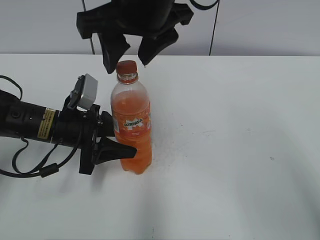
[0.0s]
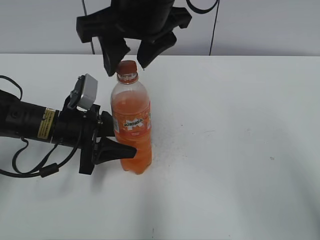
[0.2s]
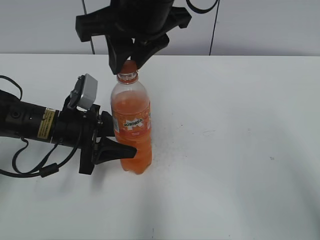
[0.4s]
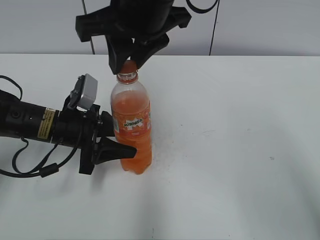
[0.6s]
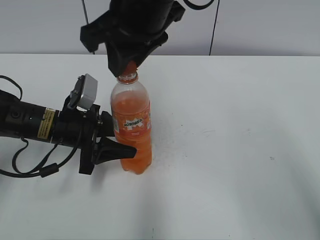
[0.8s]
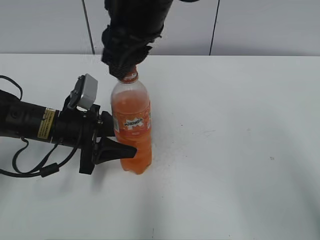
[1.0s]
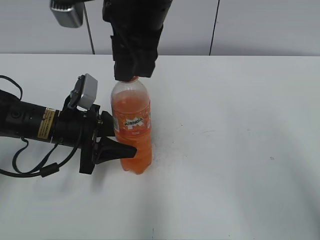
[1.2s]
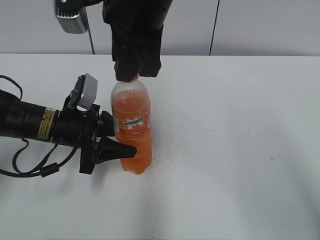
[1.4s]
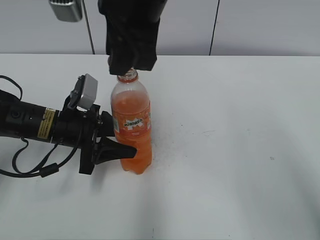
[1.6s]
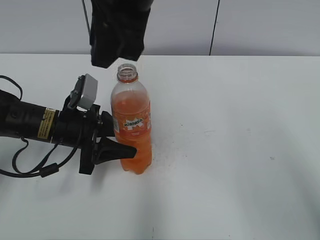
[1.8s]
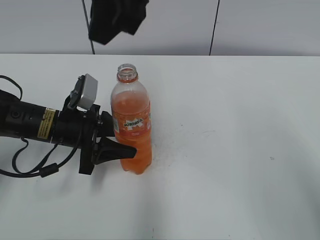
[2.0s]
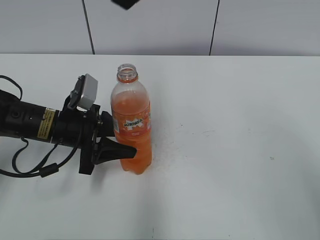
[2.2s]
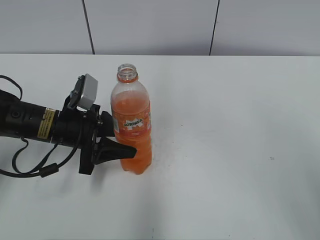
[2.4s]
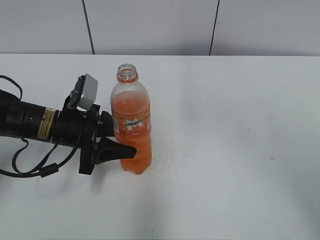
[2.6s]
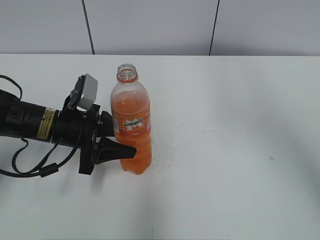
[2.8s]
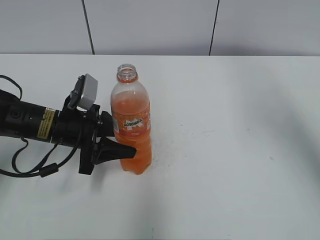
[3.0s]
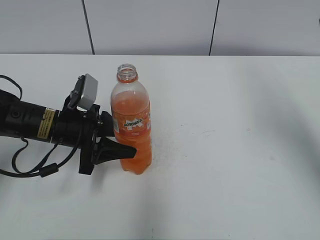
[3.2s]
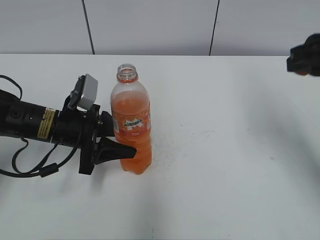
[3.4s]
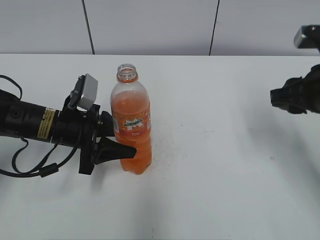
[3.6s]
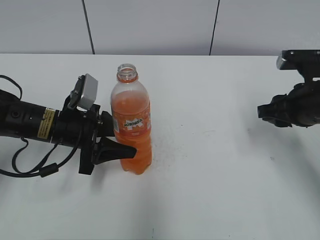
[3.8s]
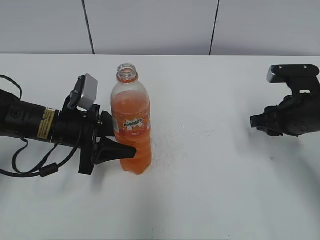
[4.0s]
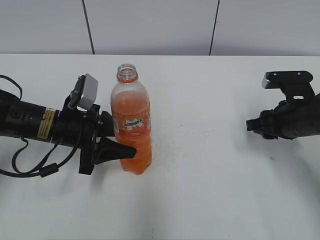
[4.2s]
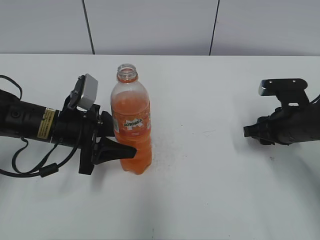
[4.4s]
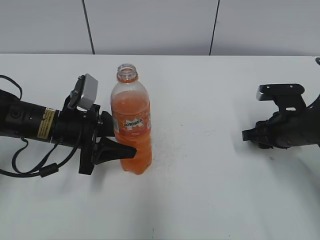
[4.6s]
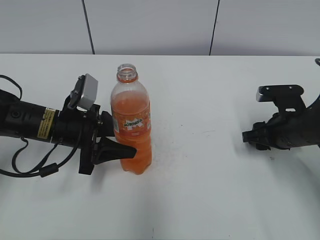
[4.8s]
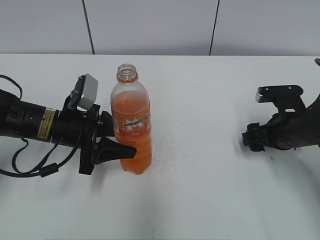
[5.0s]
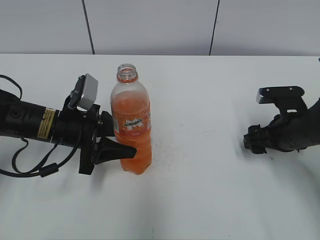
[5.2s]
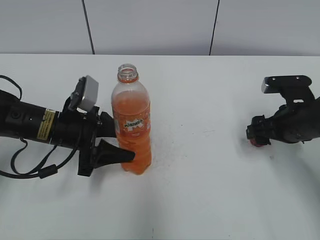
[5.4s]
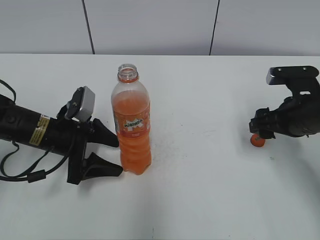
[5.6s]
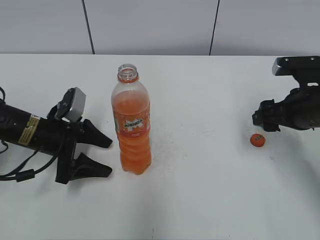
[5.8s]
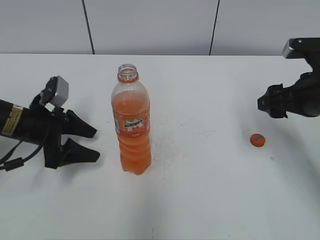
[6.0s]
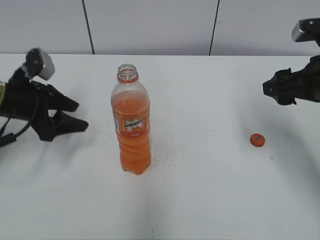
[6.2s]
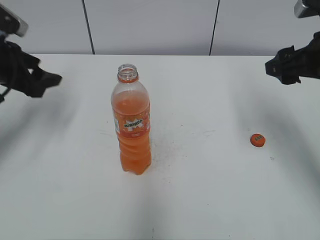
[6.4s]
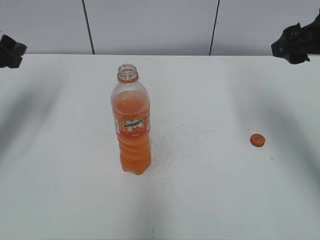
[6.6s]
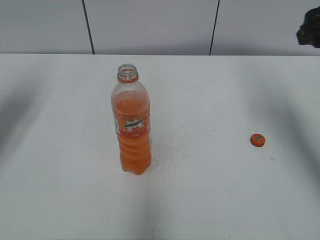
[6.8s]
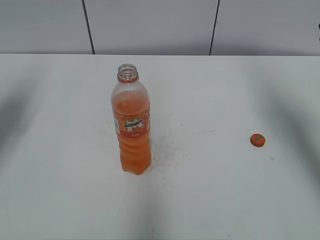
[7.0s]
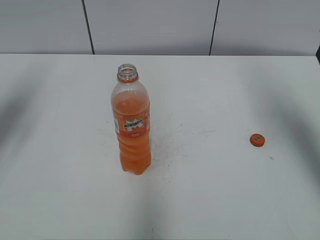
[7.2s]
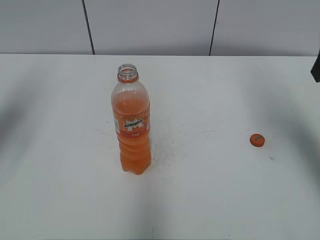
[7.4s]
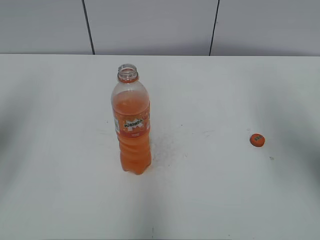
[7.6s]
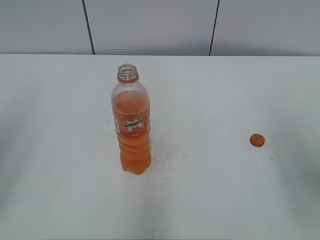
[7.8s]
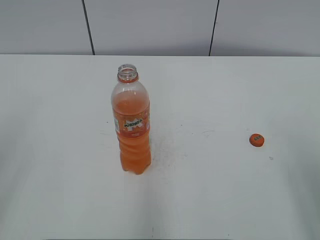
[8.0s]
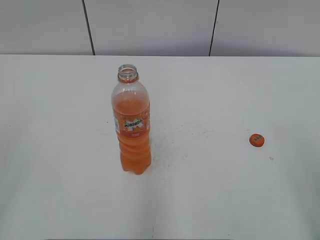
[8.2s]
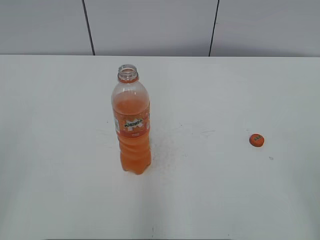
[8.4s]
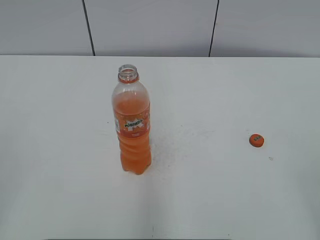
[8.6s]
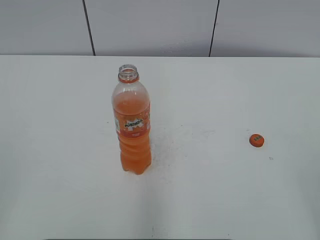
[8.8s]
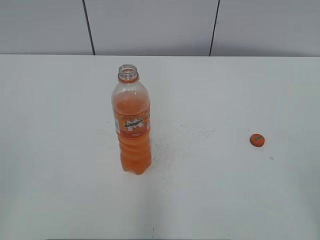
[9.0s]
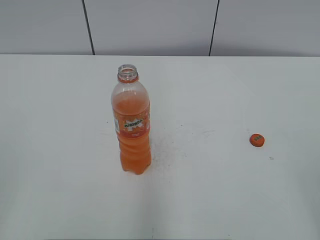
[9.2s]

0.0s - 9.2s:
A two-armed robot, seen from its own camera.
Step, 1.6s - 5.0s: Place the bottle cap on the right.
0.0s - 1.6s: The right gripper closes.
1.6s - 3.0s: The right gripper goes some 25 cm to the right.
3.0s - 4.6s: The right gripper travels downward by roughly 35 cm.
4.6s - 6.2s: The left gripper is displaced to the left by about 10 cm, and opens up; the right gripper is displaced upward by roughly 15 cm, and opens.
6.2s - 7.6s: The left gripper travels upward and backward by approximately 20 cm. Meanwhile the right gripper is displaced upward by approximately 10 cm.
7.6s - 9.2s: The grippers both shift backward by approximately 25 cm.

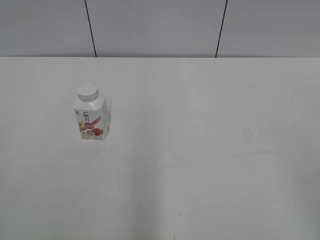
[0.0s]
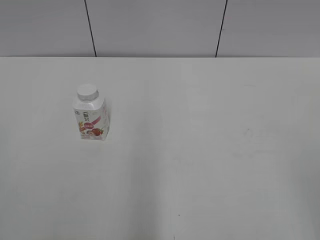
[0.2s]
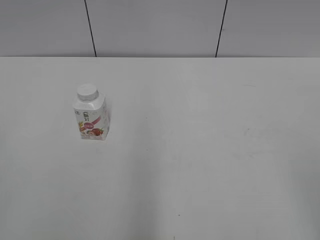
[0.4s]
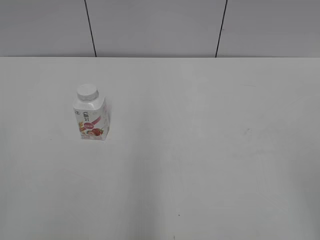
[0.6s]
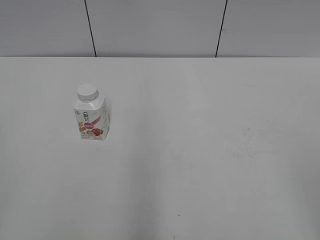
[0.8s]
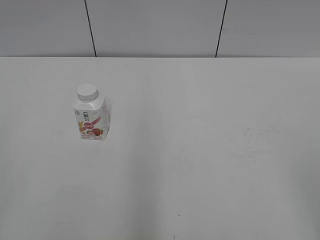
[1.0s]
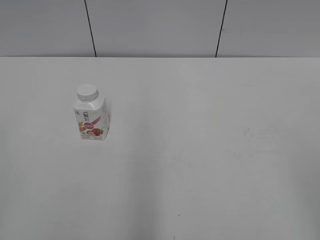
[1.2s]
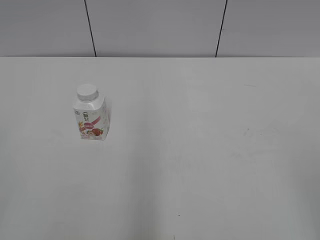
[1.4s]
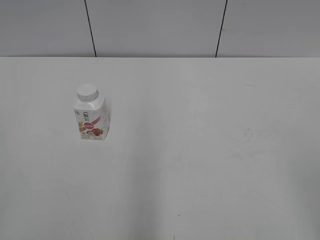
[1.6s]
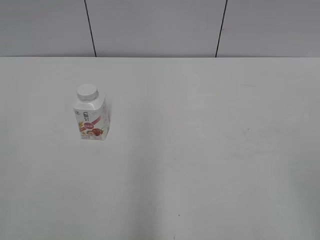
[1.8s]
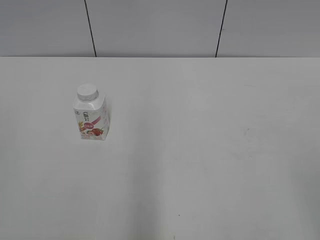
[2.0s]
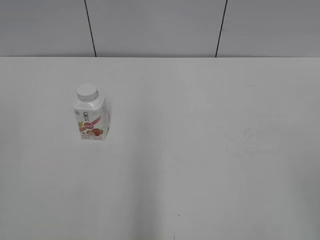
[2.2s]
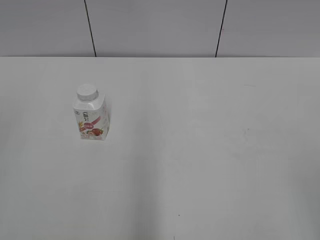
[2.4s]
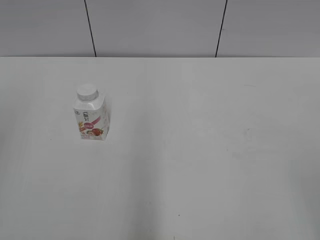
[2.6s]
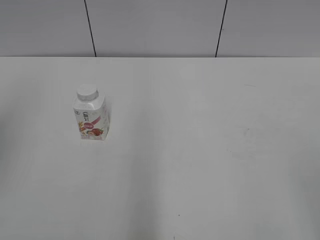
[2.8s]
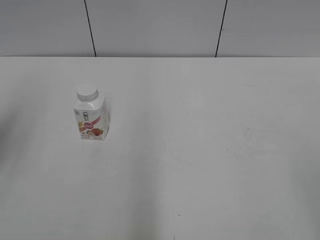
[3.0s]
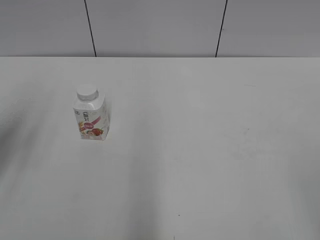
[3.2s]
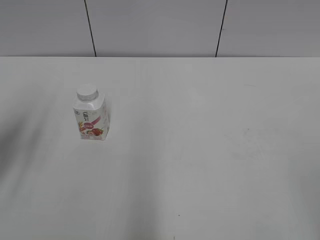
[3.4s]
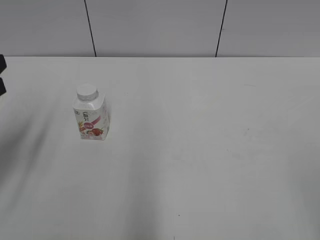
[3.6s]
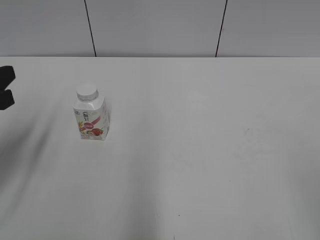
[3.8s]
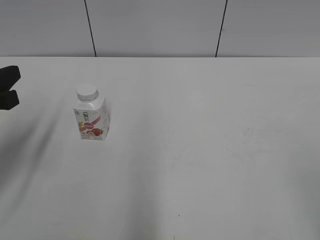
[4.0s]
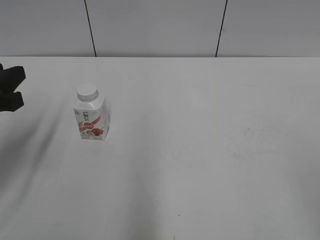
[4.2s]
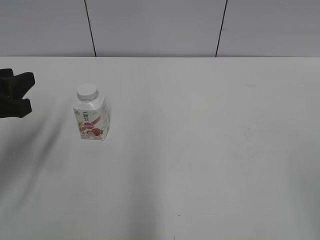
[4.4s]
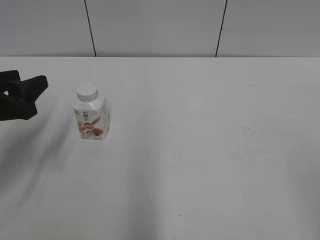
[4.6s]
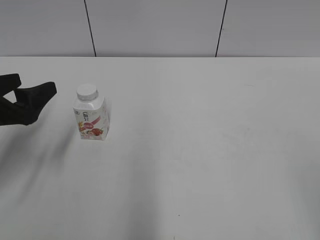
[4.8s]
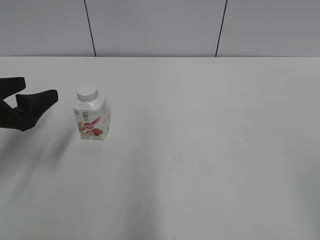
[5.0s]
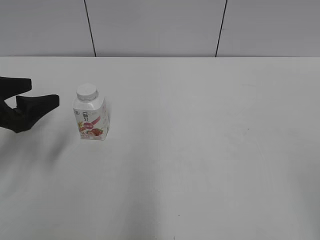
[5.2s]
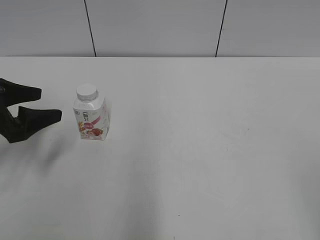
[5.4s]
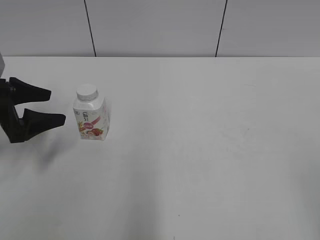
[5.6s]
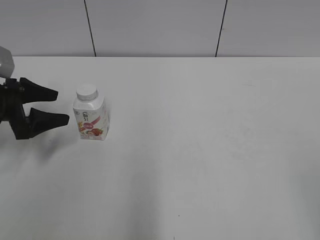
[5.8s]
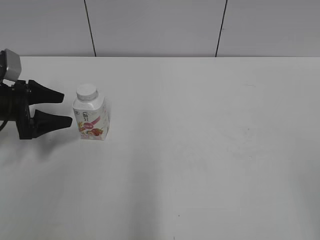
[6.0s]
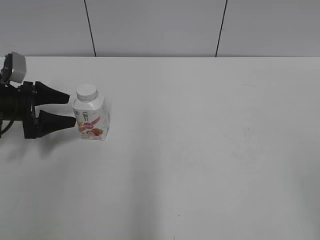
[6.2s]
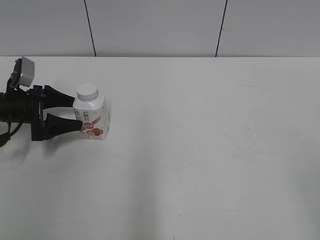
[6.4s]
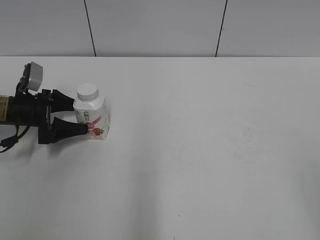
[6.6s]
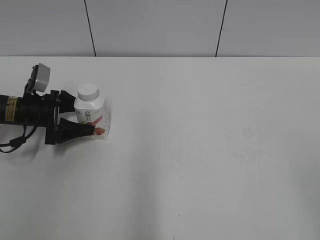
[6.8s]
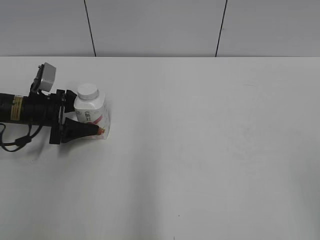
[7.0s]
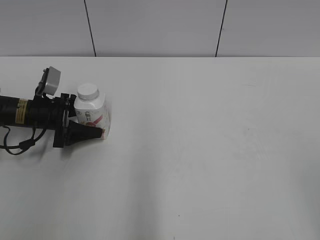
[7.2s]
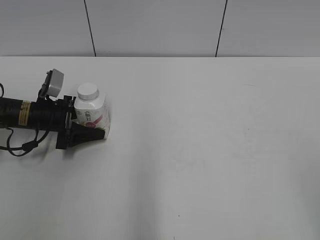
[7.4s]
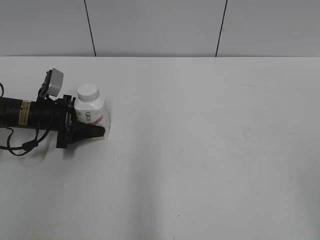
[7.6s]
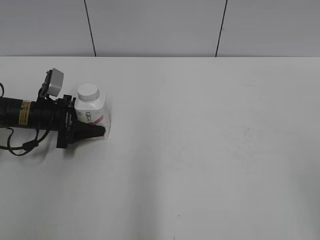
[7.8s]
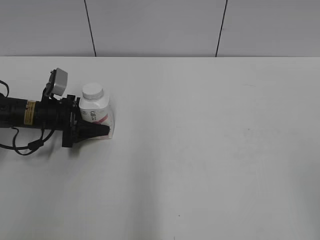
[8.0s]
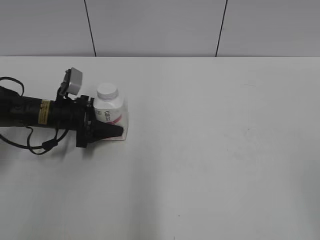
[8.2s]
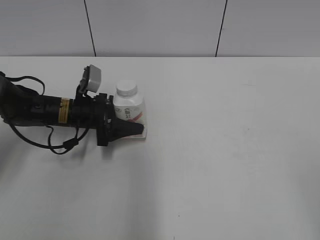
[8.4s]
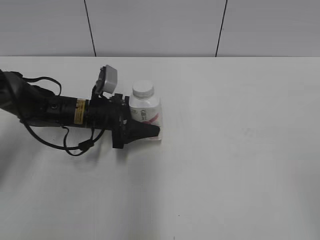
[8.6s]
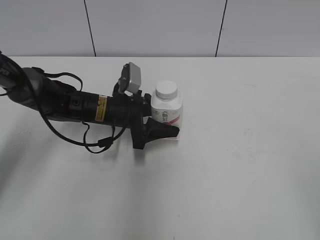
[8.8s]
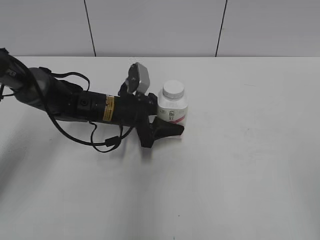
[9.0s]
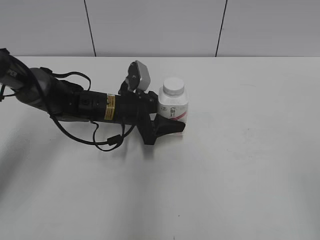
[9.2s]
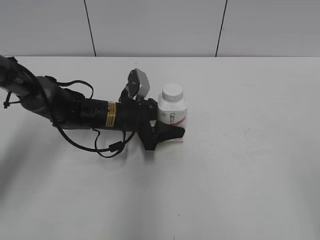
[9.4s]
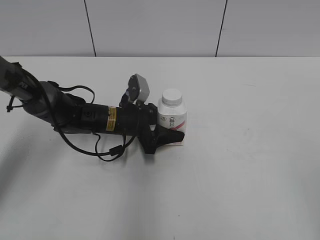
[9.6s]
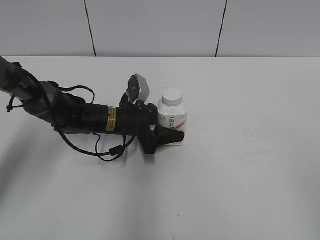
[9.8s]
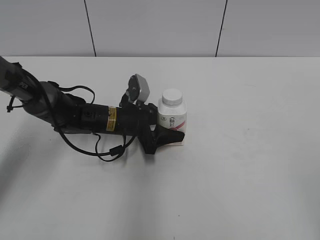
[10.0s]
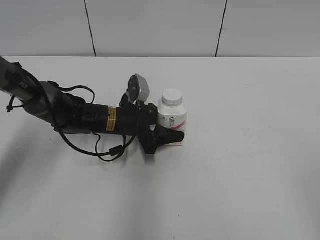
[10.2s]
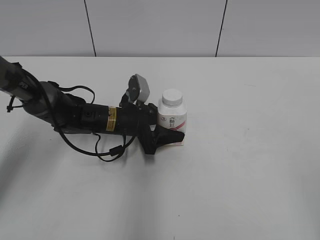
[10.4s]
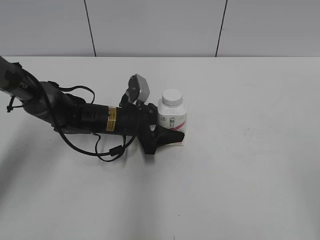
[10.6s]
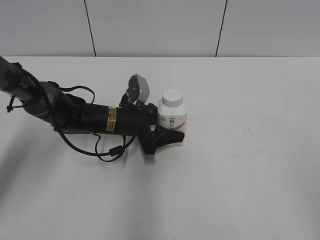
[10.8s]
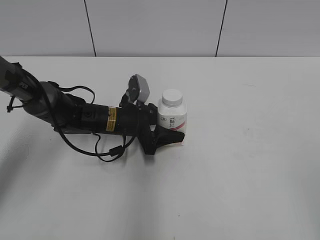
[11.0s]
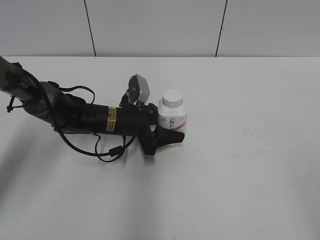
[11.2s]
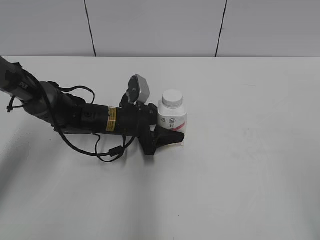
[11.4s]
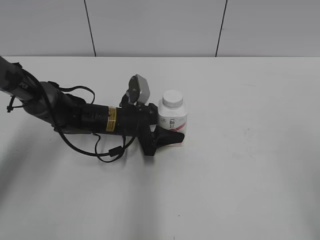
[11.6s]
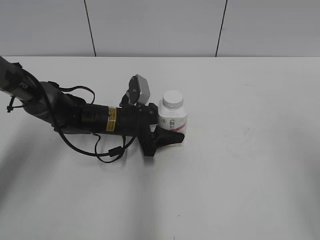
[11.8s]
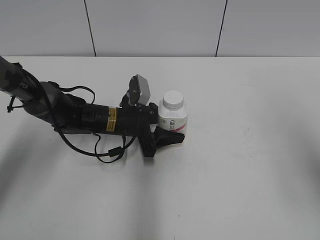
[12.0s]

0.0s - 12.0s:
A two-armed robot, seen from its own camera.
Step, 0.0s - 7.6s: Grab the Yili Changqing with the left hand.
1.6s - 3.0s: The left gripper goes roughly 20 cm forward.
3.0s - 4.4s: The left gripper moves downward, roughly 15 cm.
4.4s - 6.0s: The left gripper is displaced forward and downward by roughly 15 cm, and opens.
6.0s - 7.6s: The left gripper moves downward, some 5 cm, and closes its fingers.
7.6s - 9.0s: The left gripper shifts some 15 cm to the right.
9.0s - 10.4s: The grippers move only a little.
10.4s - 12.0s: The right gripper is displaced forward by roughly 15 cm.

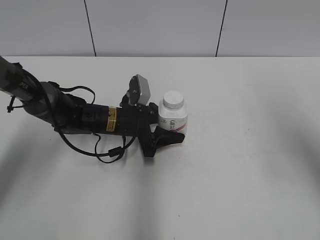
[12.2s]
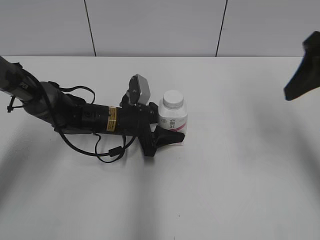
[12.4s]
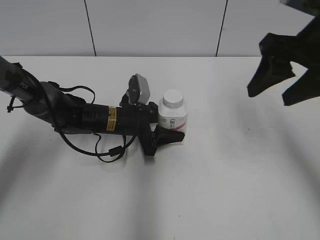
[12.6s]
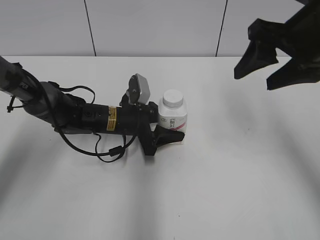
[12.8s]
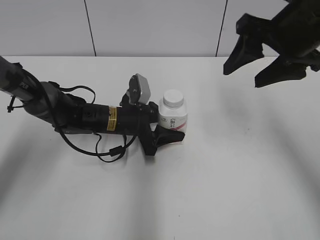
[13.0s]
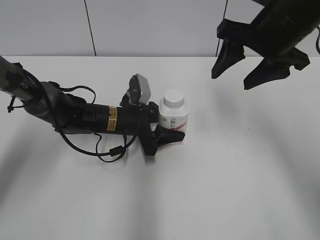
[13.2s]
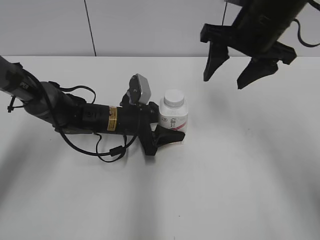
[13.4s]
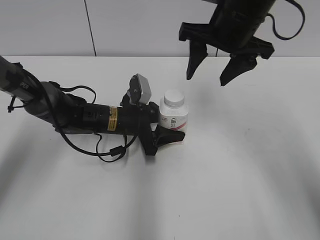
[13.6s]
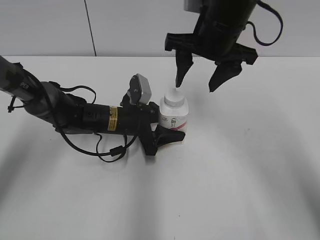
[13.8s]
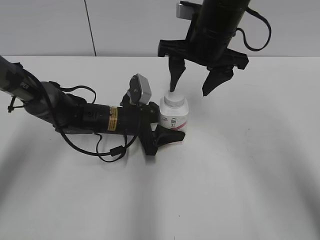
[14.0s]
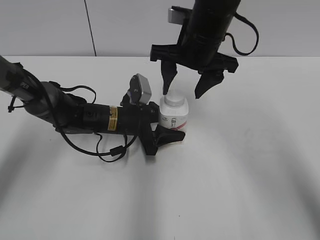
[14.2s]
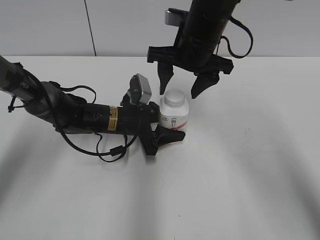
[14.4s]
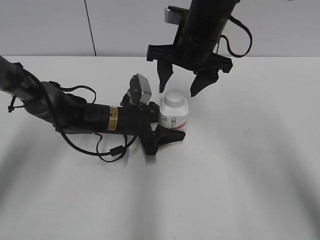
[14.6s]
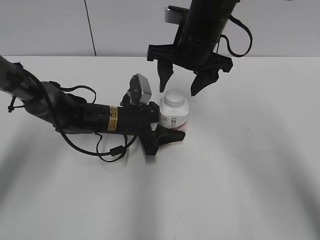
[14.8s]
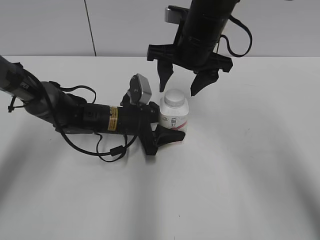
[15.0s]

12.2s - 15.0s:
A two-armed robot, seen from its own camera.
12.2s - 13.6s: The right gripper moves to the left and forward, some 20 cm.
13.6s - 15.0s: The right gripper moves about 5 cm.
